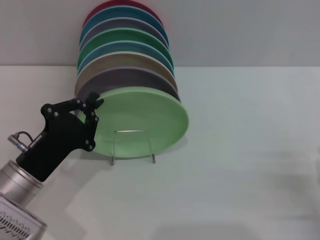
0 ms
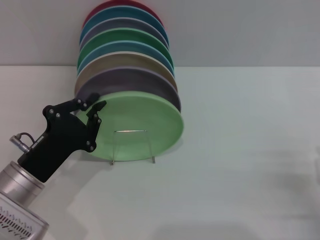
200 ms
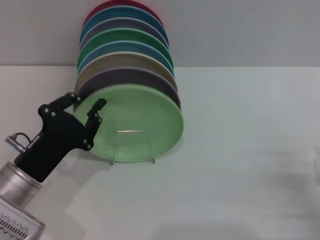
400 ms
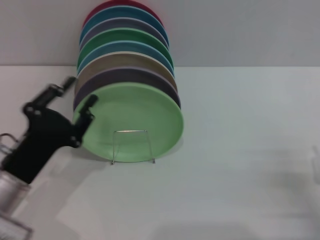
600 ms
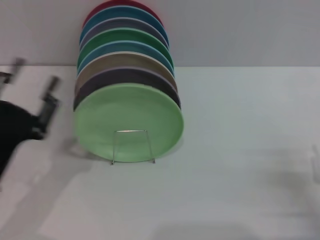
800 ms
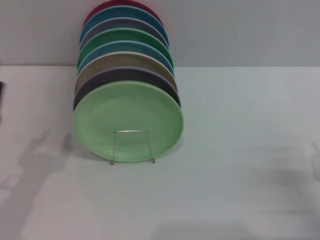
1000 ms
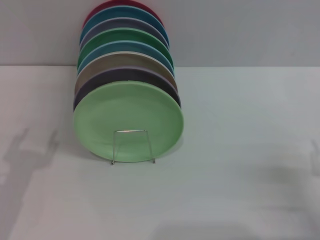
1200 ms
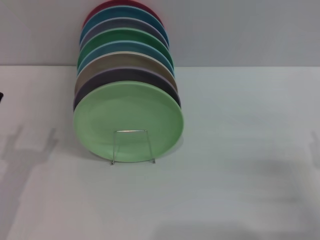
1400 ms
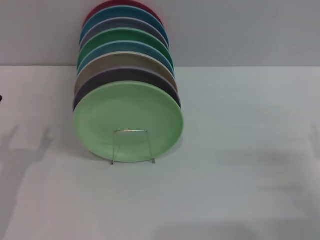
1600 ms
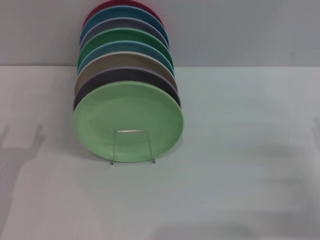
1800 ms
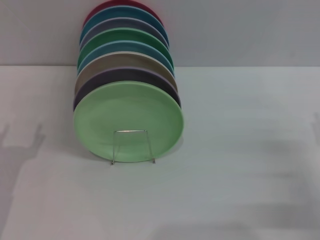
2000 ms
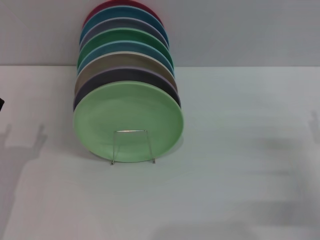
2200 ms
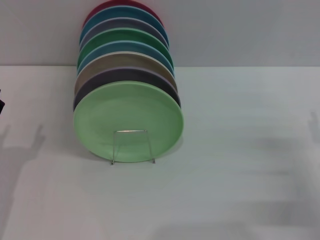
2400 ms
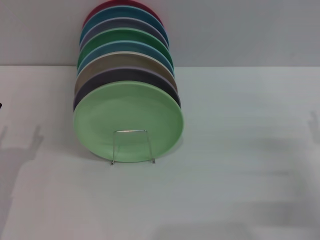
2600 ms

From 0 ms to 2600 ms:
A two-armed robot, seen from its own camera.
Task of the whole recording: Grip the plate with one hand, pass it to the other, then set it on the shelf.
From 0 ms to 1200 ms: The left gripper moves to the left, about 5 cm, and opens.

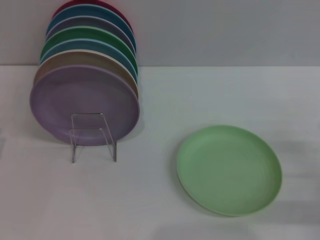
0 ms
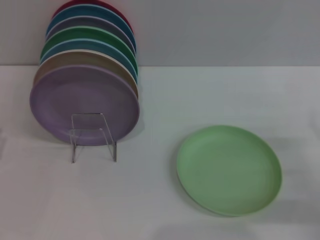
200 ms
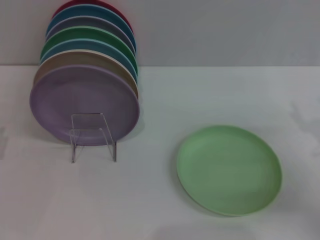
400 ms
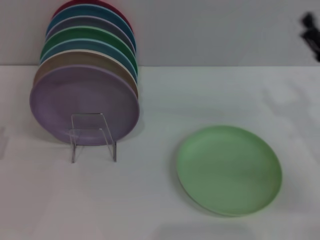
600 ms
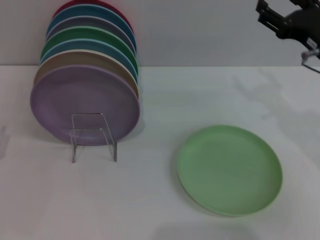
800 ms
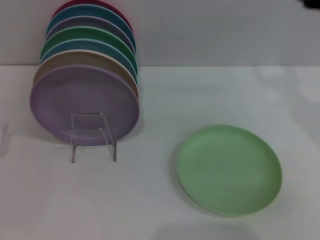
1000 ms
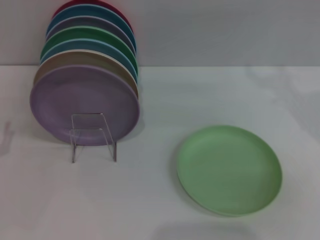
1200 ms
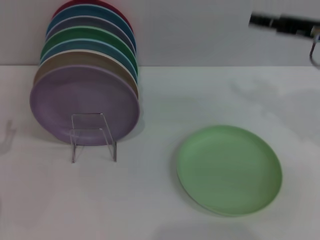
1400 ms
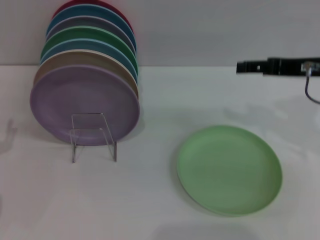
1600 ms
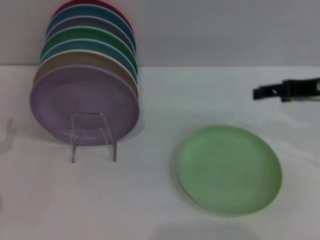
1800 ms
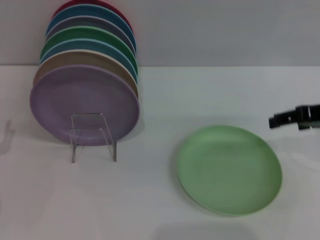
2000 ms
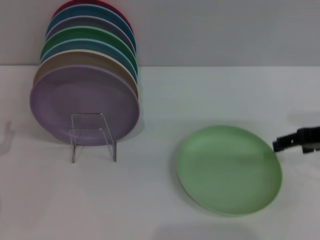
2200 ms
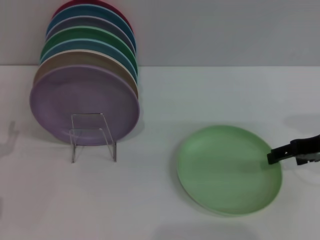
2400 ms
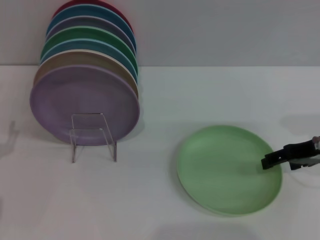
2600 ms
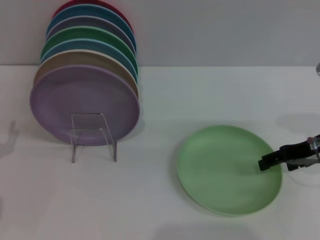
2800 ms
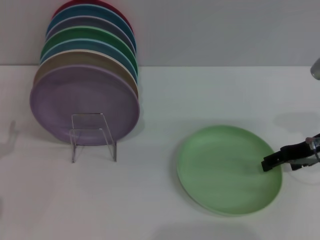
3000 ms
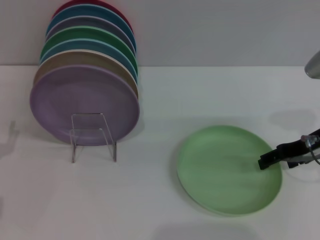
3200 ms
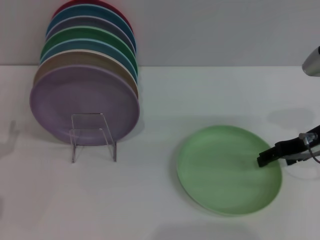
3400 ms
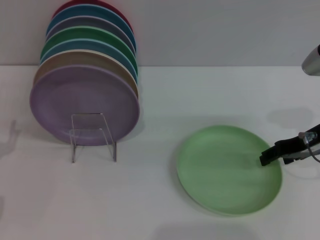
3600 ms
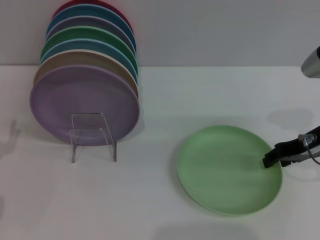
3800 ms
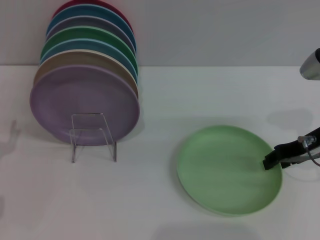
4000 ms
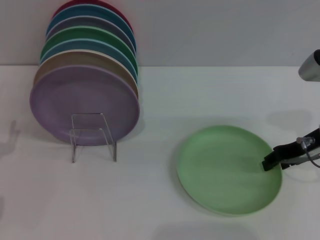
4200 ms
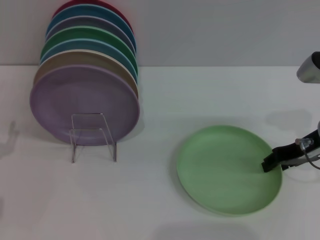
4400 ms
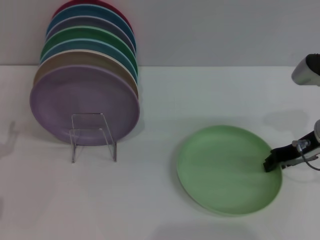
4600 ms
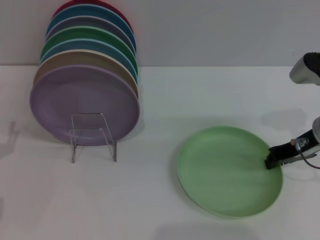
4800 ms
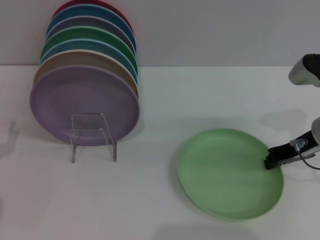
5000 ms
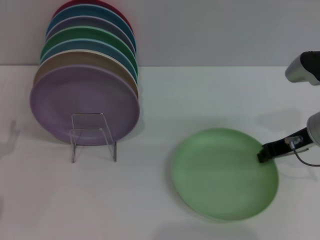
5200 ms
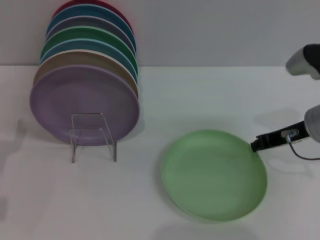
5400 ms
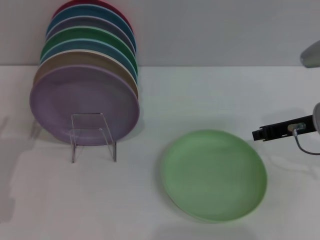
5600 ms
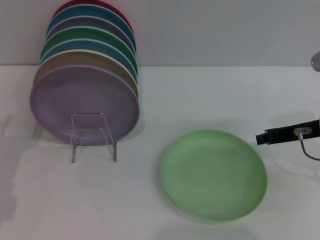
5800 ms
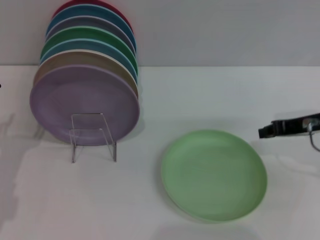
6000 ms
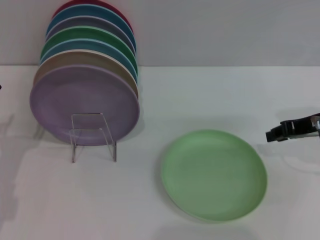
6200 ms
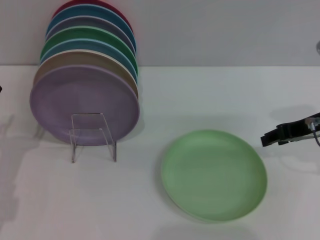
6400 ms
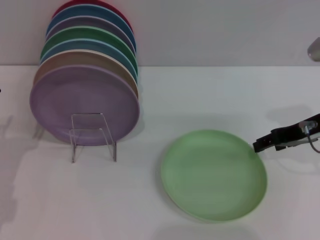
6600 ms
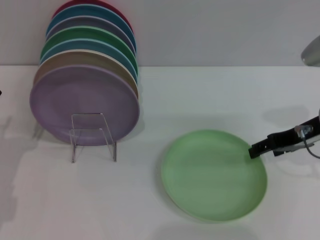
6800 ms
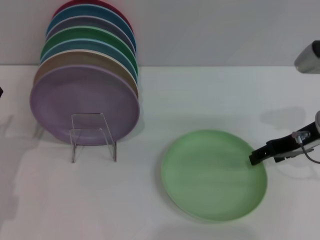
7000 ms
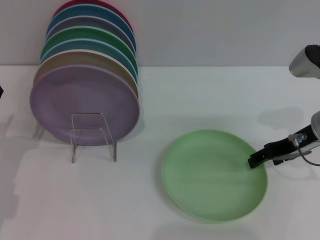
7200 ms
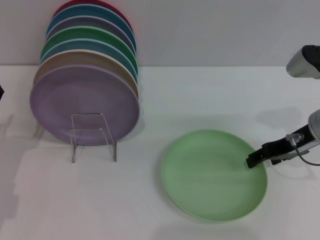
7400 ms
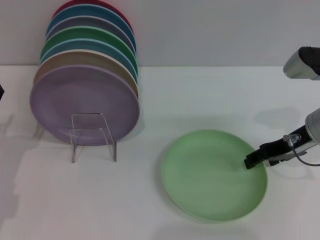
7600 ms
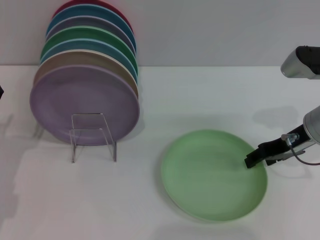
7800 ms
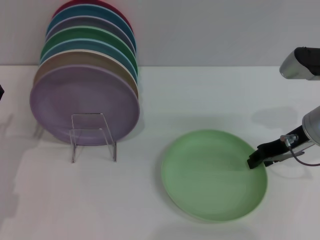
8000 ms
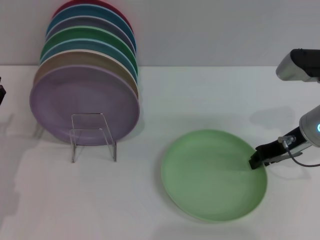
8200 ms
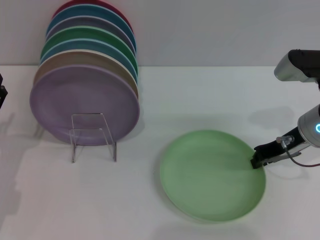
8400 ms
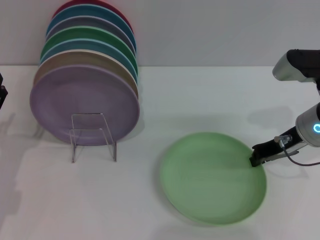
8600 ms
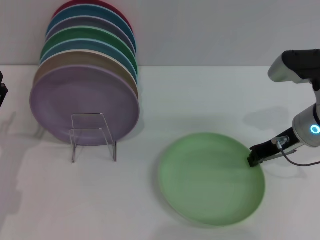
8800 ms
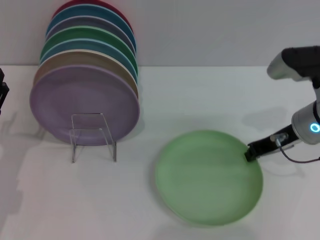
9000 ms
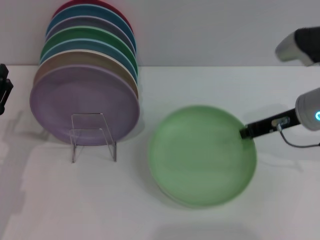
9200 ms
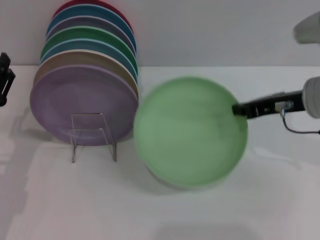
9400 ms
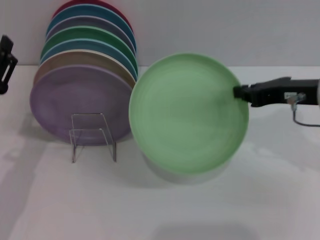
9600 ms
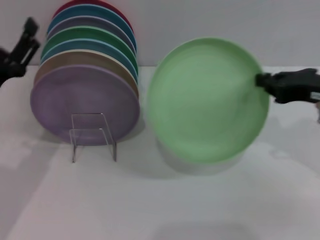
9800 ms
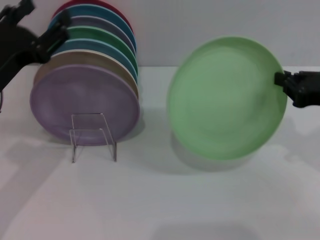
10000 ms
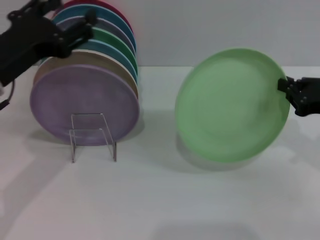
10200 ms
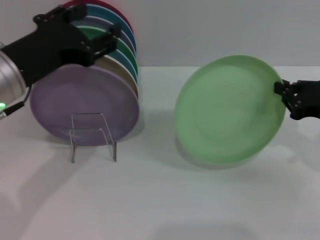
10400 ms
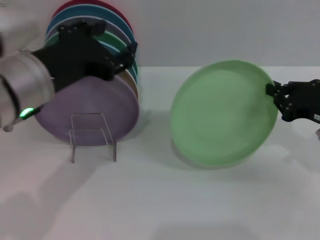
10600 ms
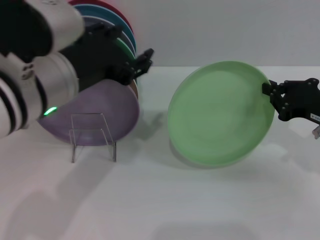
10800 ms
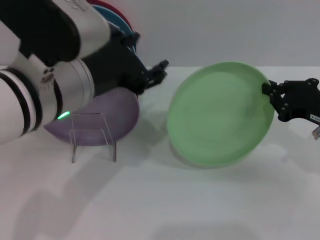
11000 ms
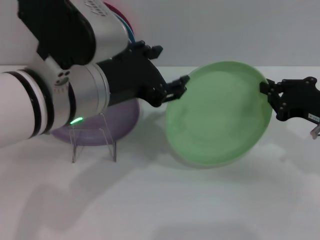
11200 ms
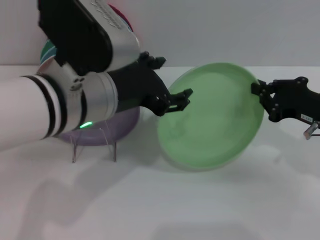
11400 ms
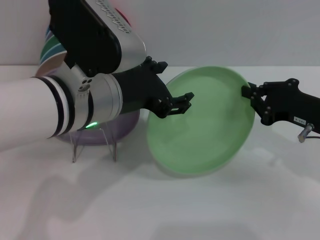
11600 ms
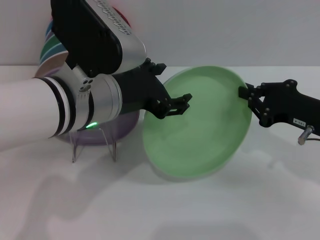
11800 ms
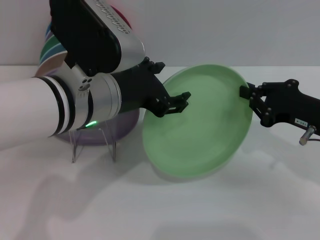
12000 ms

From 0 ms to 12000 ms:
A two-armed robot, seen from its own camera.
Task of the whole recording: Grip the plate with one hand, pass it to the other, then set it on the shelf.
Step, from 0 ms to 9800 ms: Pick up the plate with the right gripper.
From 0 ms to 1600 ms: The right gripper moves upward, forward and to the left, some 20 cm.
From 1600 ms to 3000 ms: The right gripper is displaced downward by about 5 cm.
From 3000 ms to 4400 ms: The right gripper closes up.
From 4400 ms to 6000 ms: The right gripper closes up.
From 6000 ms to 7600 ms: The right gripper opens its fingers.
From 7600 ms to 9000 ms: The right gripper closes its fingers.
From 9000 ms to 10400 ms: The right gripper heads to the right and backward, covering about 10 cm, while the left gripper shifts some 20 cm upward and to the right.
From 10400 ms to 12000 ms: The left gripper is displaced to the right by some 10 cm.

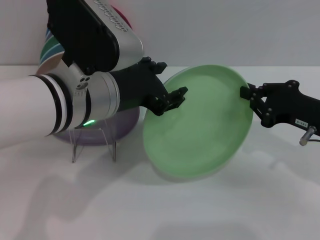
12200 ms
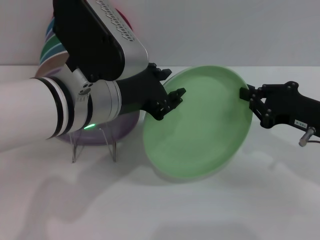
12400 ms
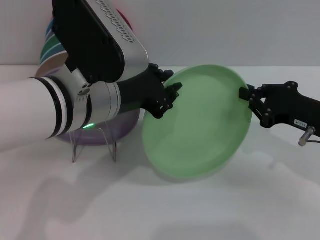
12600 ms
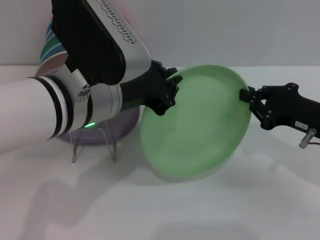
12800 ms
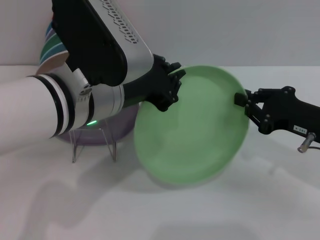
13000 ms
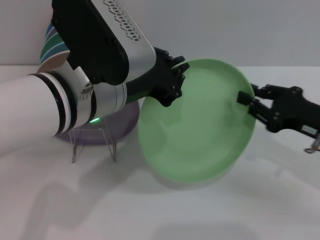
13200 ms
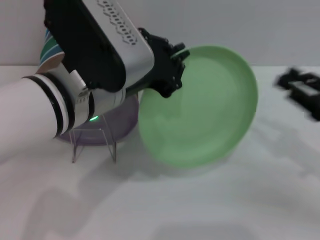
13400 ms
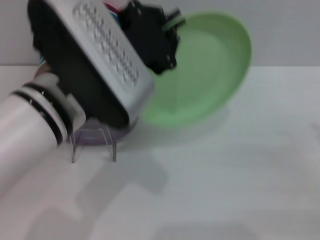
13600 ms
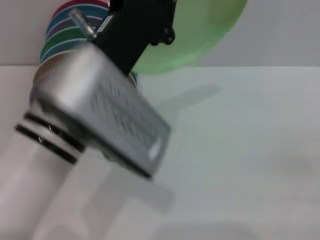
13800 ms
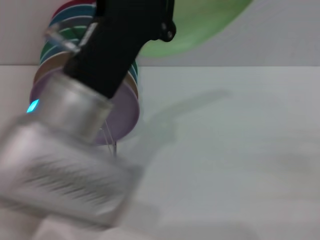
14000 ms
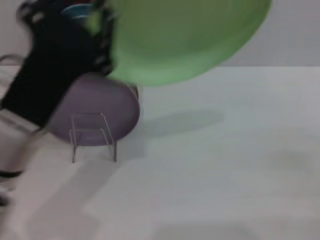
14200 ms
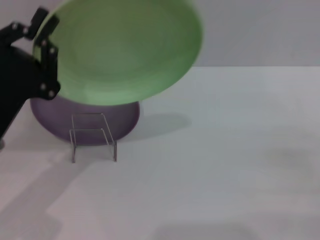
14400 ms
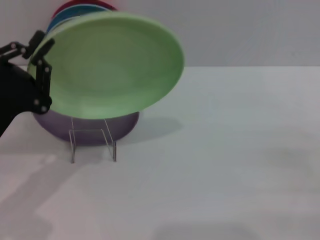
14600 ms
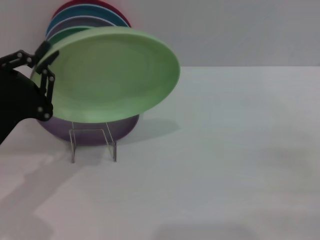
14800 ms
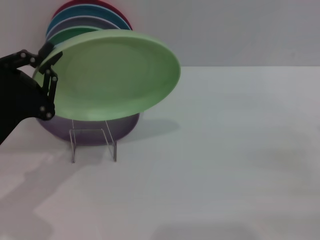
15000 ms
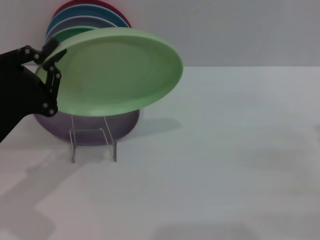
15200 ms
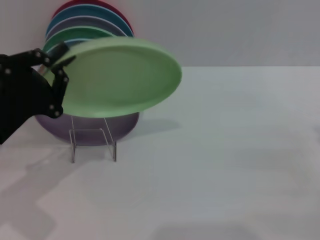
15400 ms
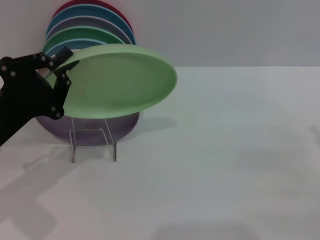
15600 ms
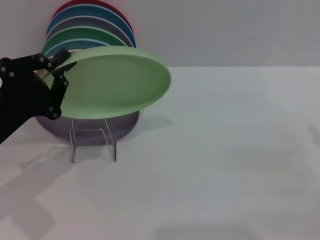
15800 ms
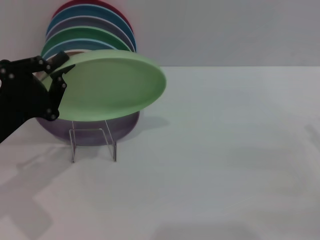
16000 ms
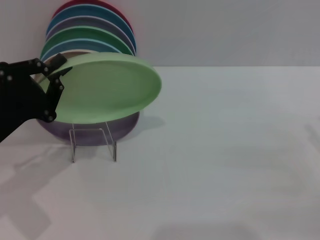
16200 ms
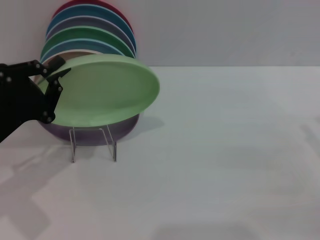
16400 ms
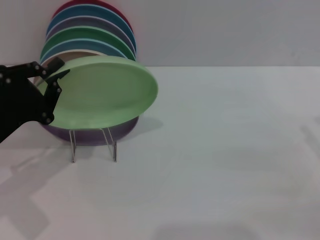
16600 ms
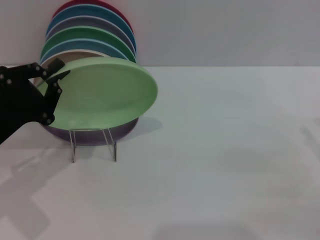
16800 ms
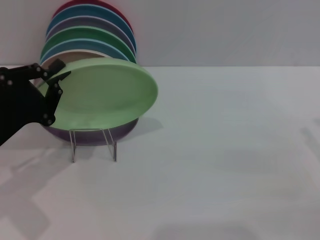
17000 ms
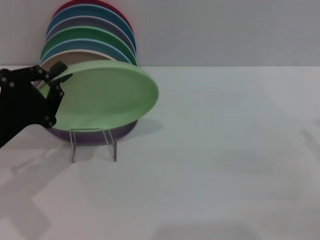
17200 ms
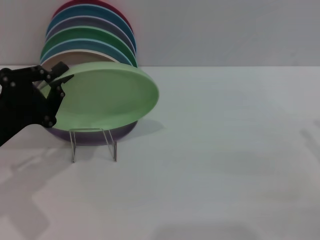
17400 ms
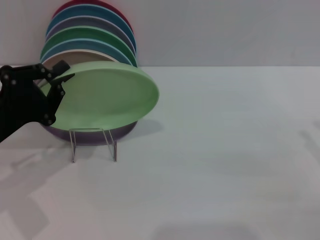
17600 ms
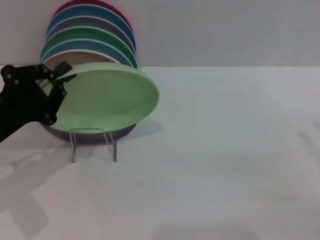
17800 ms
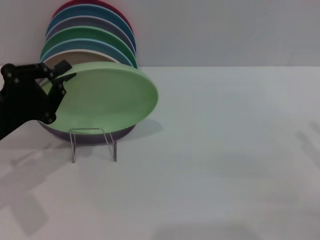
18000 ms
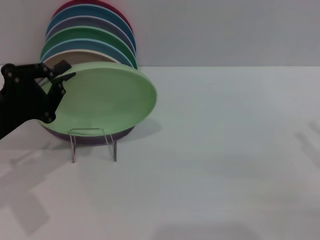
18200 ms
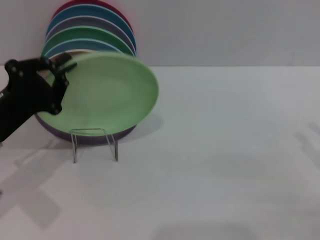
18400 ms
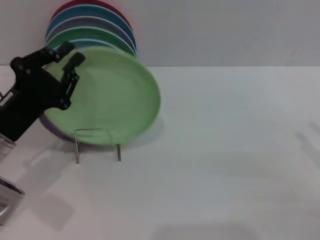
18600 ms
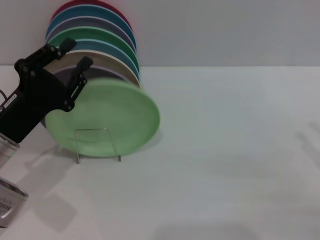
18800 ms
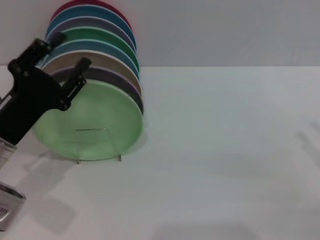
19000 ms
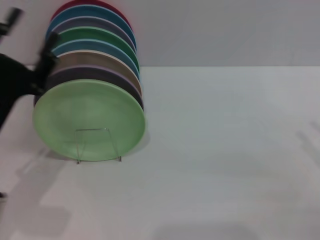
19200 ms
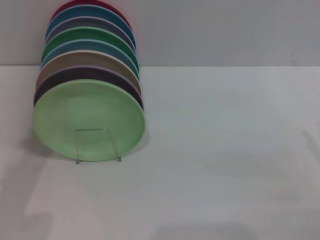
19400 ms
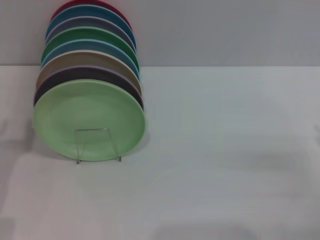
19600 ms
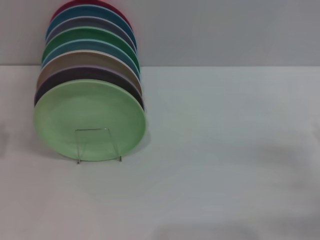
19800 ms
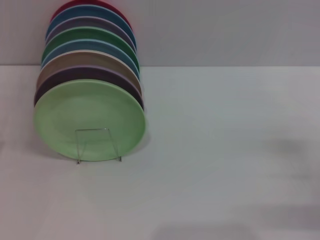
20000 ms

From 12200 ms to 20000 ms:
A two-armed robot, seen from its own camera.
Task of the whole recording: Grip the plate with one hand, pass it to the other, then set it on the shelf.
Step, from 14000 ms to 18400 ms: Place the plate on the shelf with the left gripper.
From 12200 ms to 13800 ms: The right gripper moves to the right and backward, roughly 20 cm, and opens up; the left gripper closes up.
From 13800 ms to 15400 ms: The left gripper shifts some 20 cm to the left and downward.
From 15400 ms to 18400 ms: The grippers move only a little.
From 18400 ms to 20000 ms: The left gripper shifts approximately 10 cm backward and to the left, and opens.
